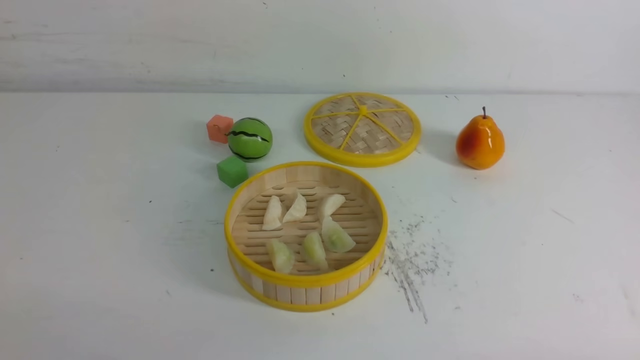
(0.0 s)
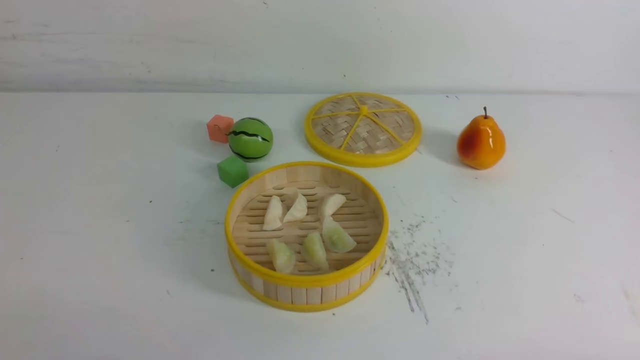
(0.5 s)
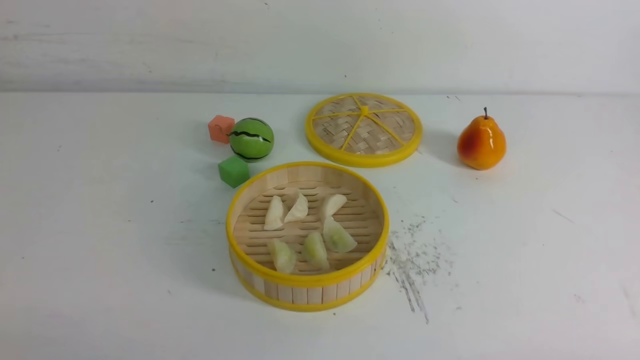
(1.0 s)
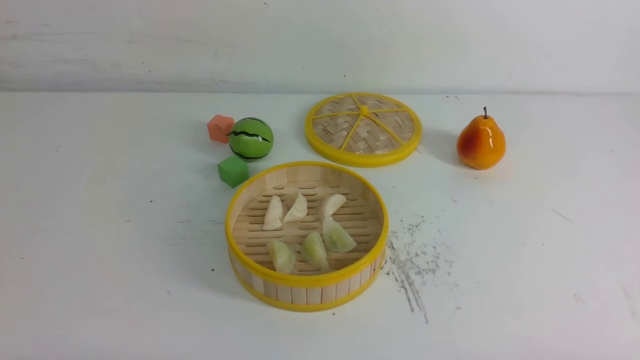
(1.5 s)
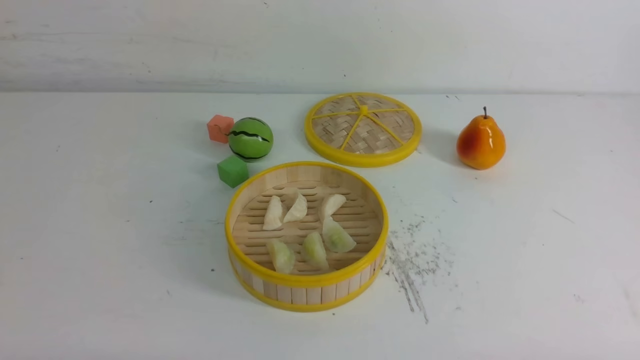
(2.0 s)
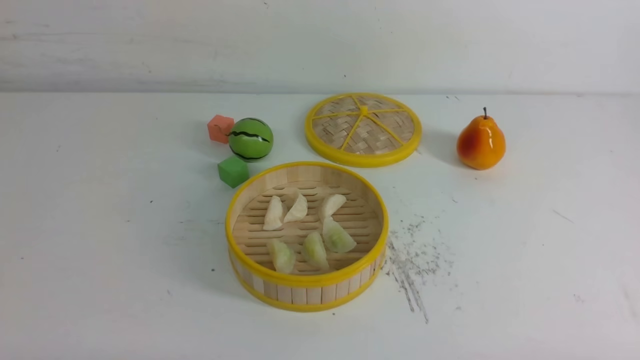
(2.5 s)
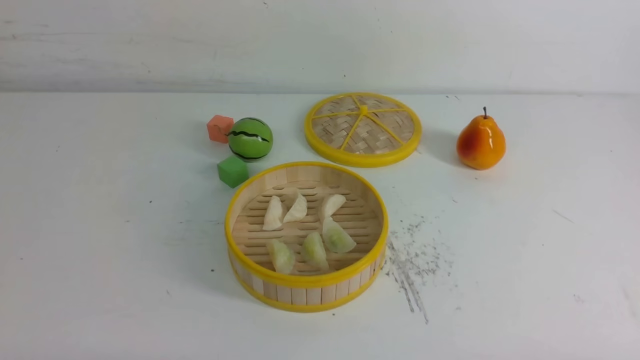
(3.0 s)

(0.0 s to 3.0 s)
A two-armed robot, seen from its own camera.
Task of the whole recording: put the dumplings into the steamer on the white table.
1.5 s - 3.0 s: The two grippers keep their place.
